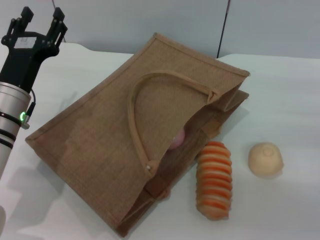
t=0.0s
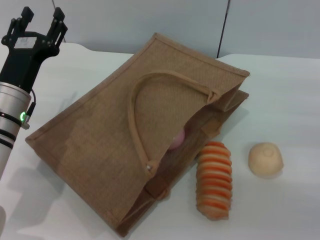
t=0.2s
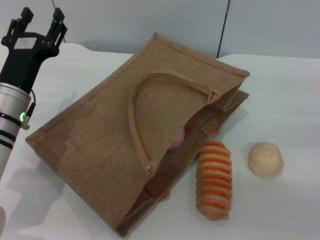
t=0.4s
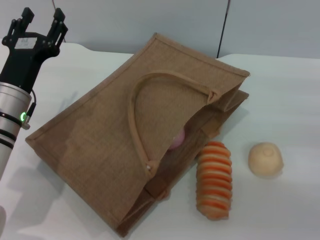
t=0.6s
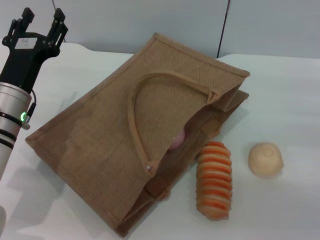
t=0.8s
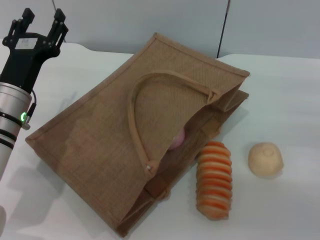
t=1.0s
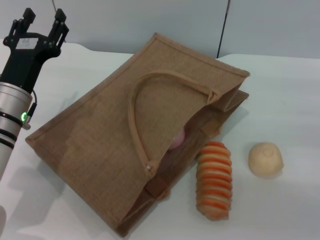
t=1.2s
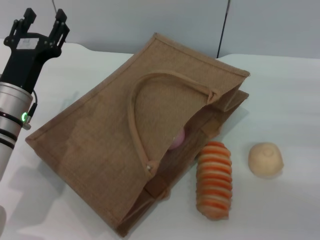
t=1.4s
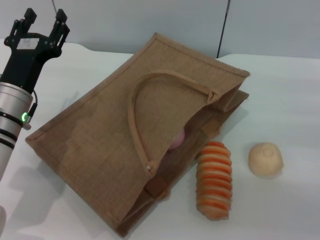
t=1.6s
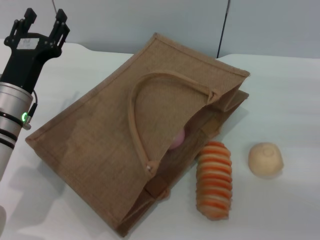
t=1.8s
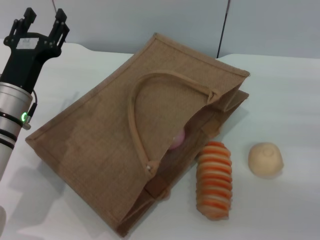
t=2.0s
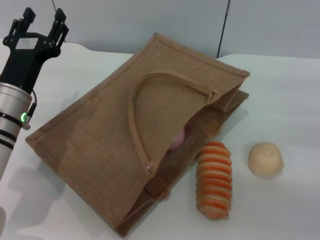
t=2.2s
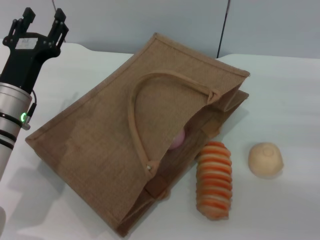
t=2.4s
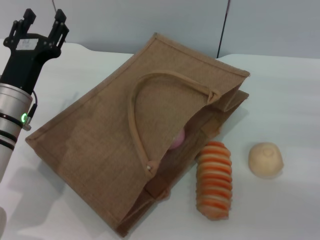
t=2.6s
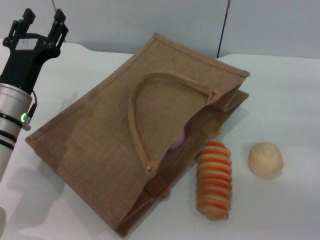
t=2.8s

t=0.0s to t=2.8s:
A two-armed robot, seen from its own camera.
Task of the whole recording: pick up the orange and peach from the table and place it in the brown handbag.
t=0.0s to t=2.8s: Both grippers stay put.

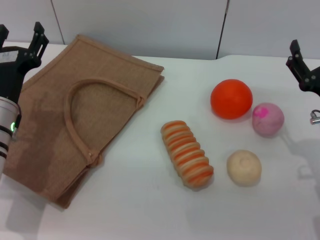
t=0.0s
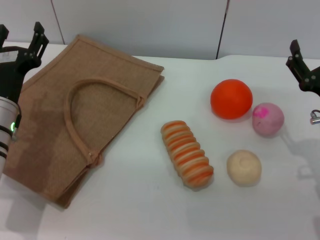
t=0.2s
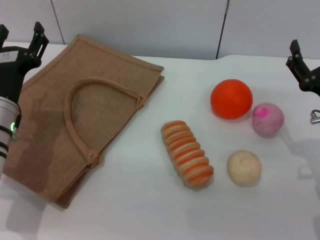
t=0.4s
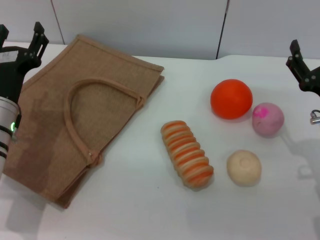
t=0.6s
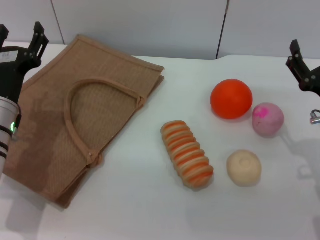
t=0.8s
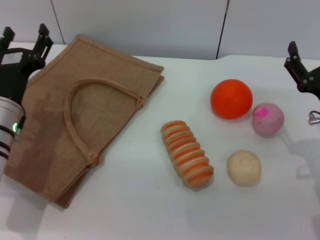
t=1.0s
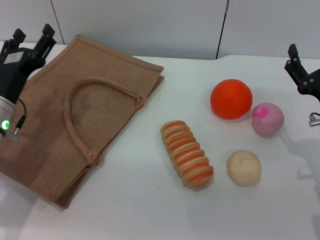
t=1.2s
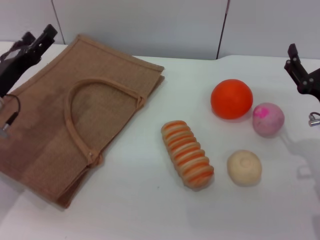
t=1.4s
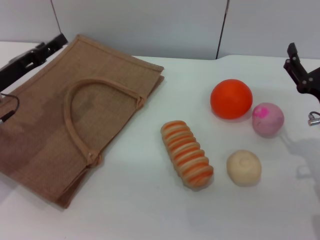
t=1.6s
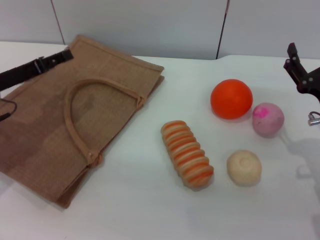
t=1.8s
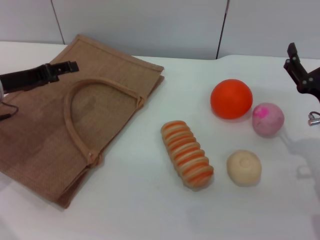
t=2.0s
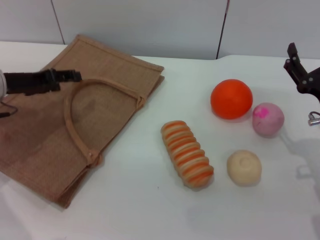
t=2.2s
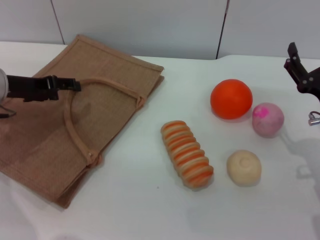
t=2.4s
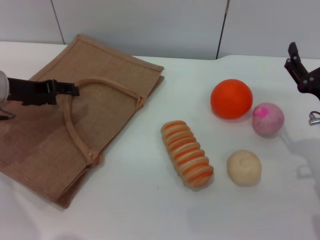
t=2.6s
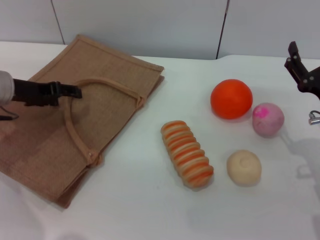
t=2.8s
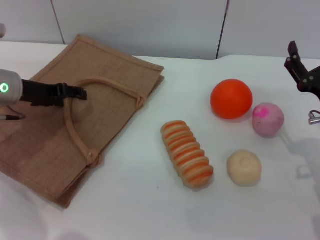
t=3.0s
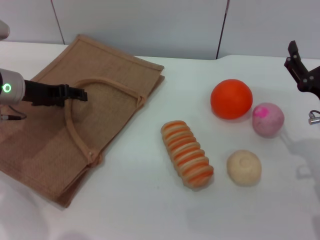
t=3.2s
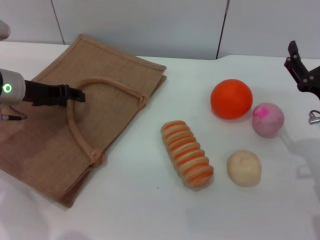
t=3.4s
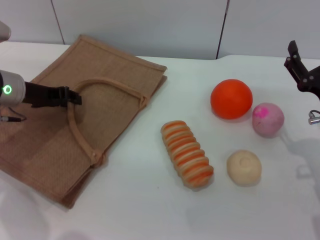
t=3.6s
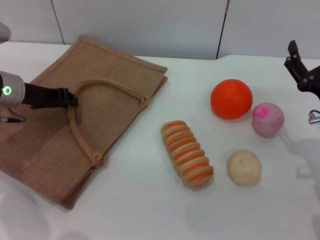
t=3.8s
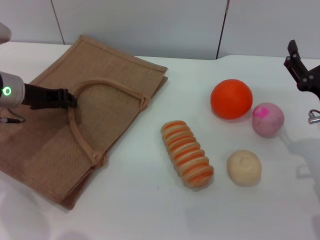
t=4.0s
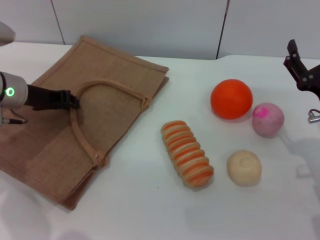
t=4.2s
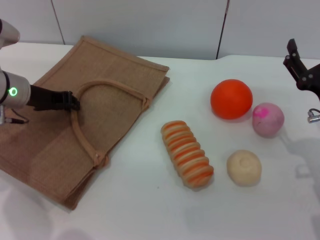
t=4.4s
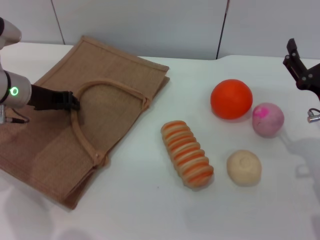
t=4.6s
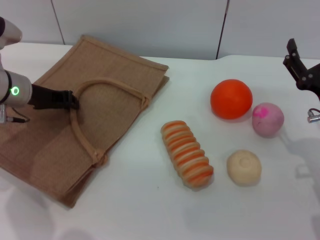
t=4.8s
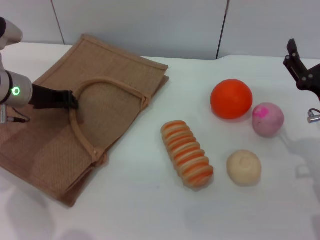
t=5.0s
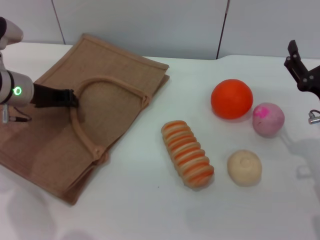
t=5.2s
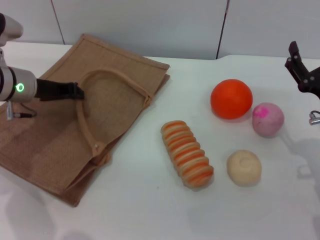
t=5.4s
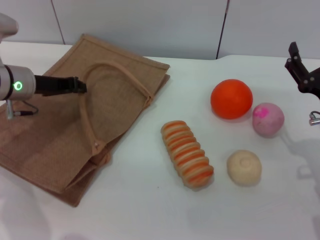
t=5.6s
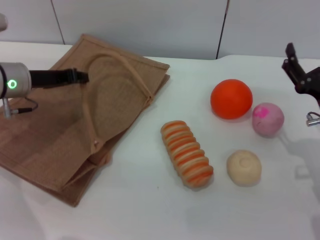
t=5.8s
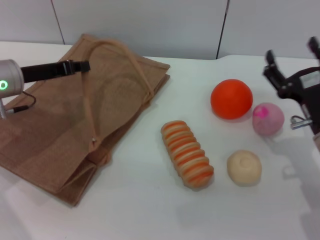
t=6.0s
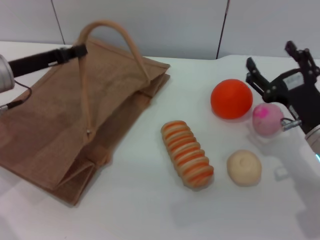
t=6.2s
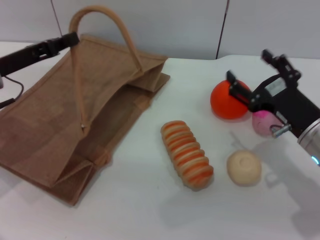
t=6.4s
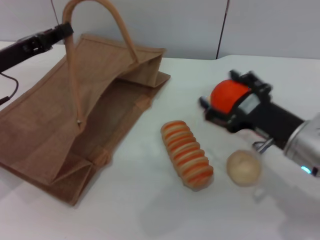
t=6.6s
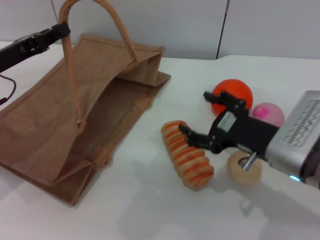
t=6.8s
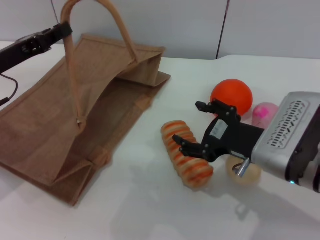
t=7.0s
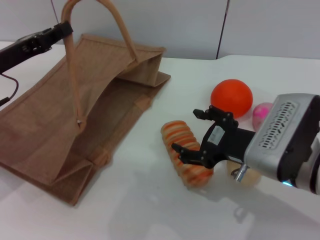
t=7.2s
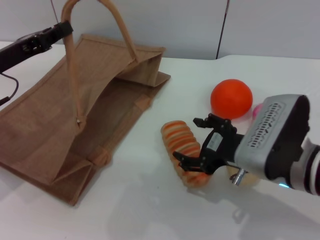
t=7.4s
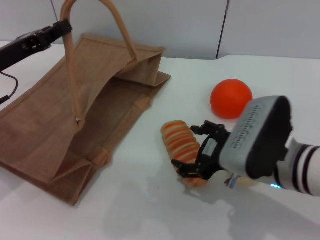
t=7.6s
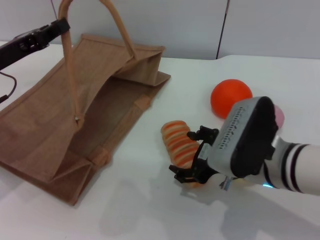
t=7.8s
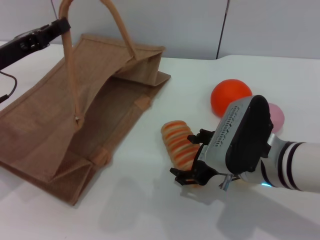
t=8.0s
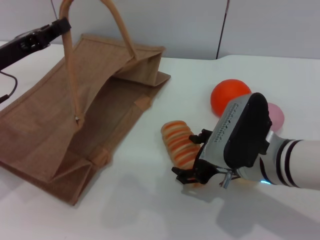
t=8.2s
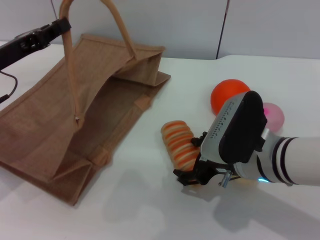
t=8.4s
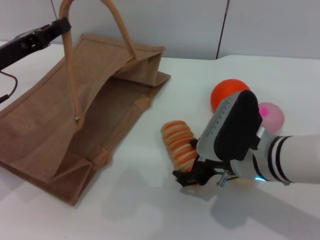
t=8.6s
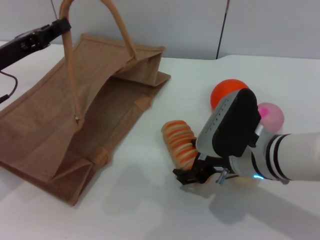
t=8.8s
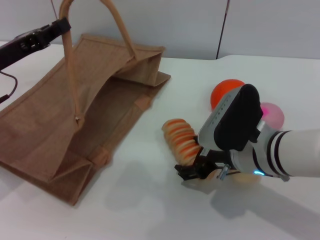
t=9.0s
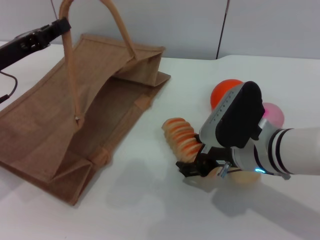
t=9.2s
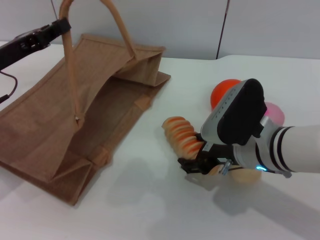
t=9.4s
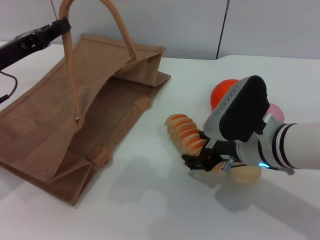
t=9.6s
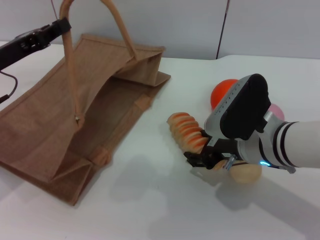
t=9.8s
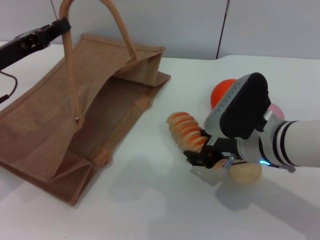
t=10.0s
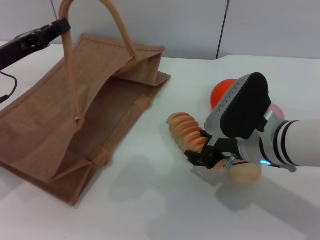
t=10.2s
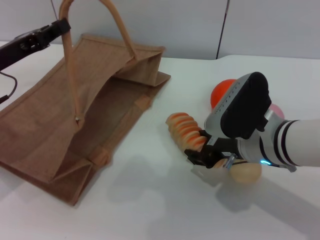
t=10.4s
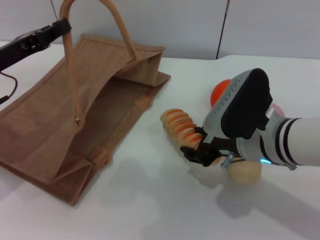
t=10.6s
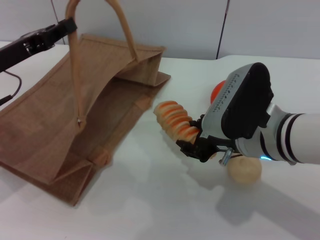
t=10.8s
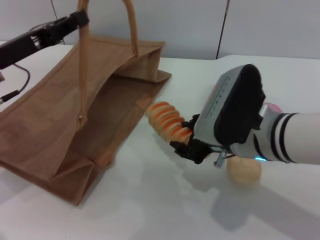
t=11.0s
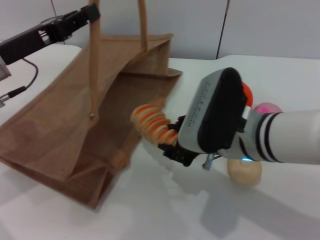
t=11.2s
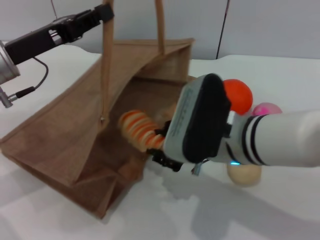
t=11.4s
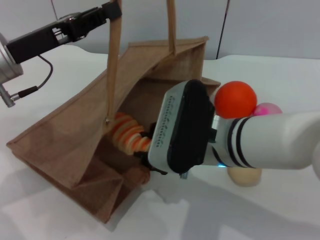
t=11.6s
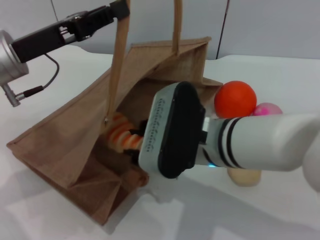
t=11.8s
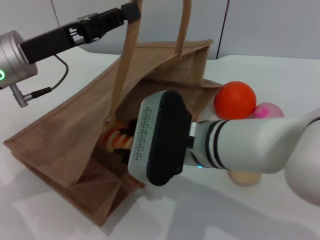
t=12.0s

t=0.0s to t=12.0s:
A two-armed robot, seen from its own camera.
Task of the whole recording: pick up the bread from the table and place it in the brown handbag.
Step, t=0.0s to t=5.6s: Lift the woven bag with the left gripper to open it.
Step, t=5.8s to t=10.8s: Pick up the bread with the right gripper.
t=0.0s to t=1.6s: The left gripper heads to the left, covering approximately 5 cm.
t=1.6s to t=3.0s: The left gripper travels forward by approximately 5 cm.
t=3.0s to t=4.4s: The left gripper closes.
t=6.0s to t=7.6s: The right gripper shifts roughly 10 cm to the left.
t=7.6s to t=9.0s: There are only small adjustments of the grippers.
t=9.0s to t=10.4s: The right gripper closes up.
t=10.4s to t=12.0s: The left gripper heads to the right, covering roughly 5 cm. The right gripper shifts approximately 10 cm to the left, and closes up.

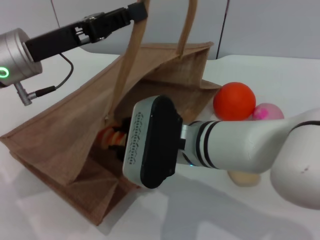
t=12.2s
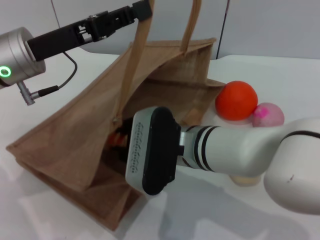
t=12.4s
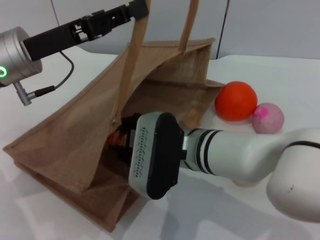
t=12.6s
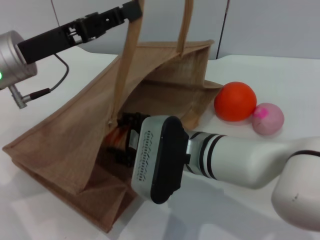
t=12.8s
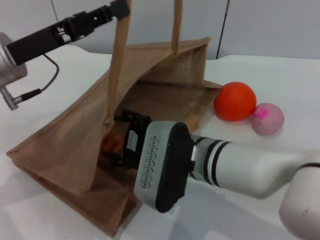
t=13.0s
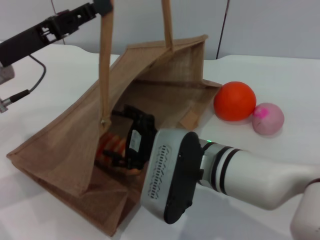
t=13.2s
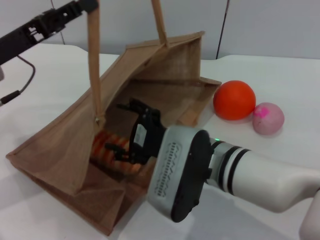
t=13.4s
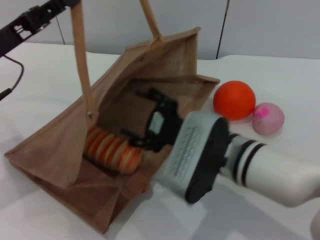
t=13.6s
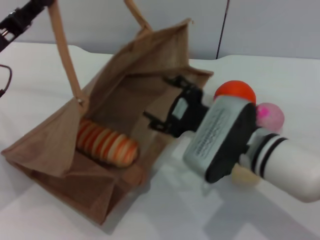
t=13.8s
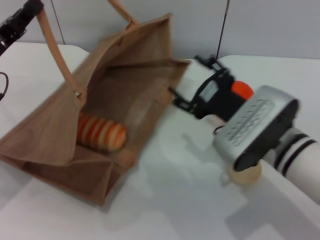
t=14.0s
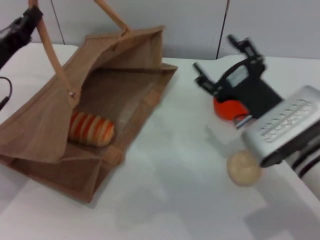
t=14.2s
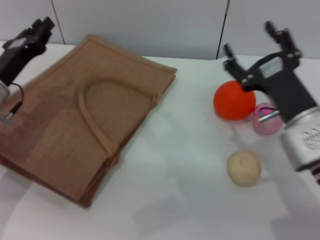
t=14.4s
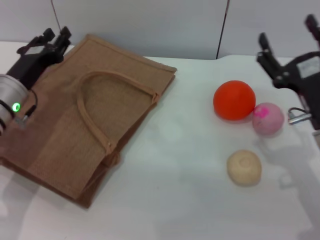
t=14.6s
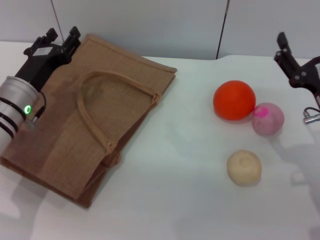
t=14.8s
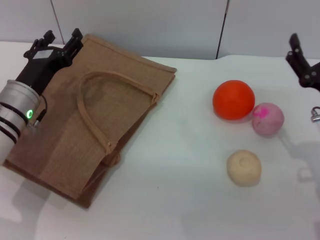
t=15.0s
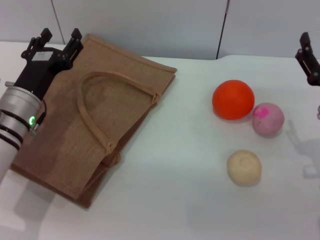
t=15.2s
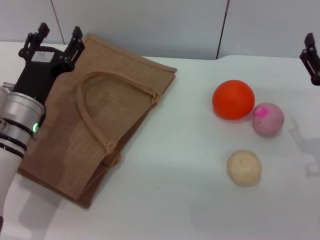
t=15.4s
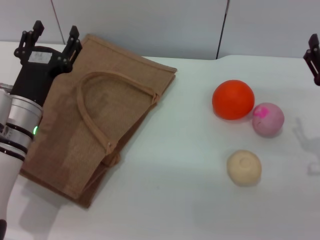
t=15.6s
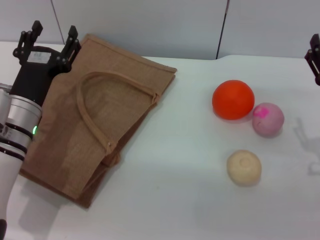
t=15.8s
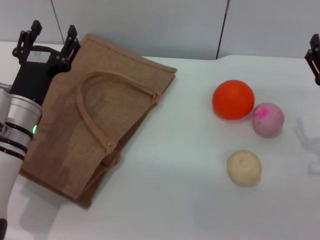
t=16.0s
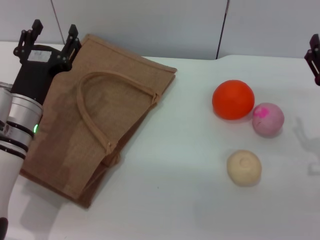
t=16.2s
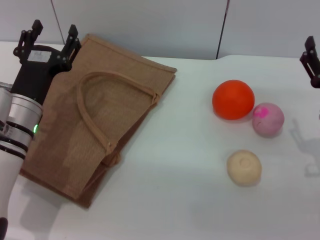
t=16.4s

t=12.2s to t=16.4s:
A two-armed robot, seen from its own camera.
Task of the whole recording: pick up the bread from the table and place it in the brown handbag.
Step, t=12.2s to t=13.8s: Place the bread into the woven bag with the right gripper.
Step, t=14.0s to t=14.6s: Lower the woven bag with the left gripper to close it.
t=12.2s to t=13.6s: The left gripper travels to the left by about 5 cm. Meanwhile the right gripper opens up.
t=13.6s to t=15.0s: The left gripper moves downward, some 10 cm, and opens up. Meanwhile the right gripper travels to the right by approximately 15 cm.

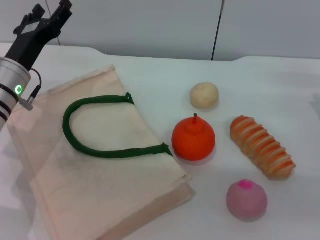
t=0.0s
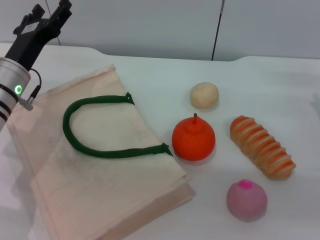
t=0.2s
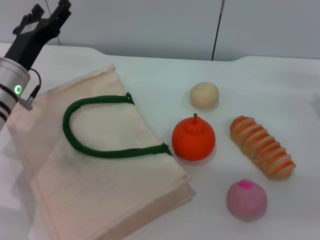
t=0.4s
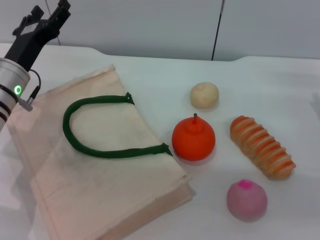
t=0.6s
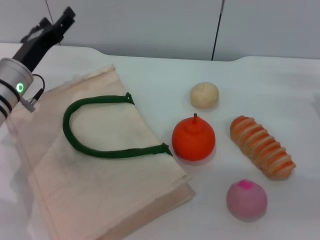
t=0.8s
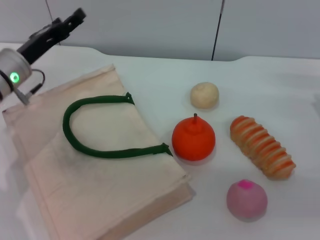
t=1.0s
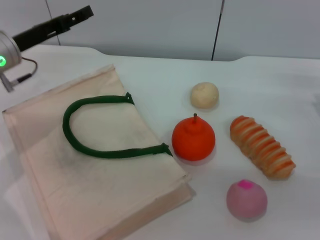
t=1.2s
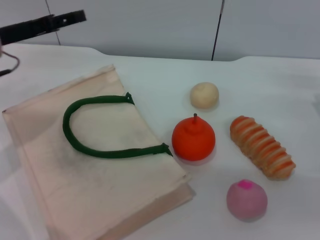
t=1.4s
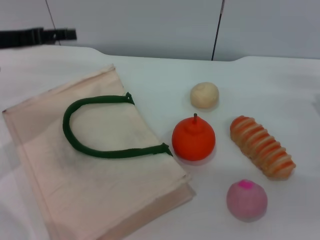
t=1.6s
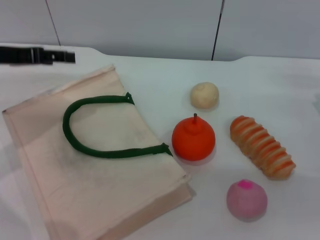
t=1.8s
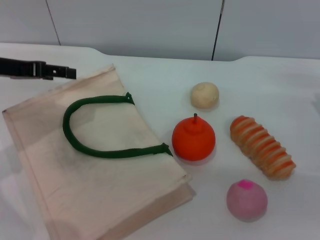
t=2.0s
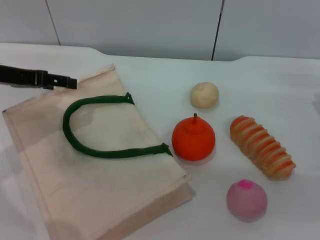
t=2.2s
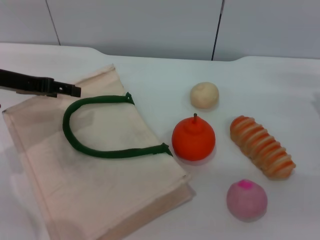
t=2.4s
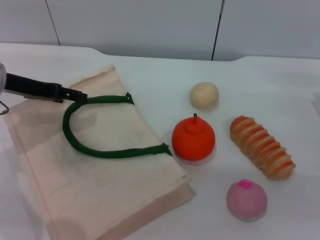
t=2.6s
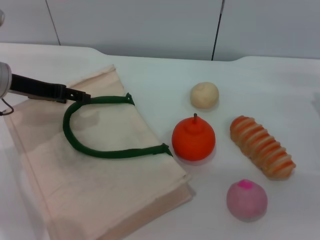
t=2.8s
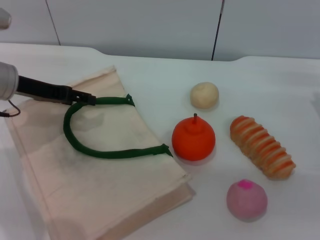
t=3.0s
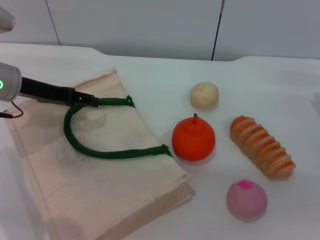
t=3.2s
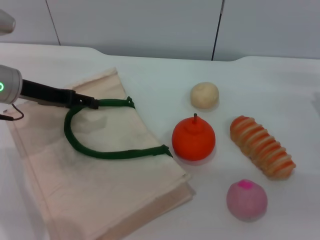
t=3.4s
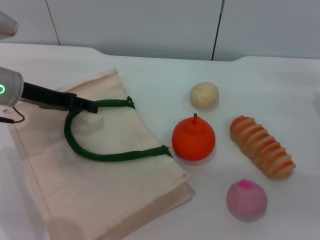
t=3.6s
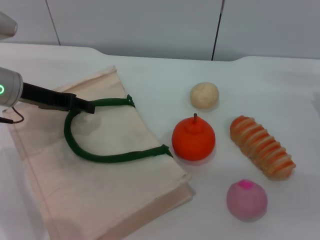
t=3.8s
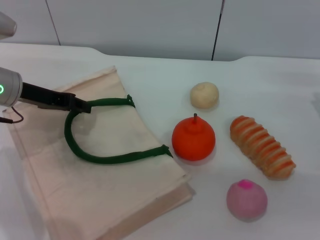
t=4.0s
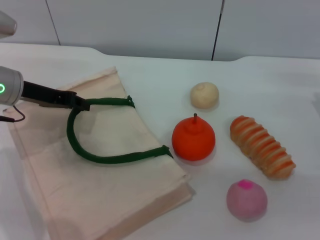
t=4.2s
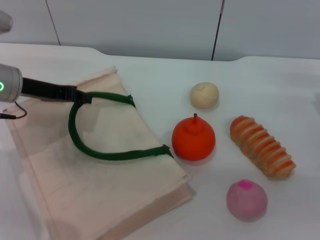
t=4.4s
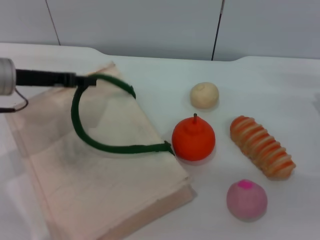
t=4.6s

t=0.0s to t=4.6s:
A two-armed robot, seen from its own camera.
Task of the whole recording: pick up the peach from the table and place it in the white handbag.
t=0.0s to t=1.6s: The left gripper heads upward and to the left, covering about 10 cm.
t=1.6s to t=3.0s: The left gripper ends up some 5 cm from where it was.
t=3.0s to t=4.6s: The left gripper closes up.
